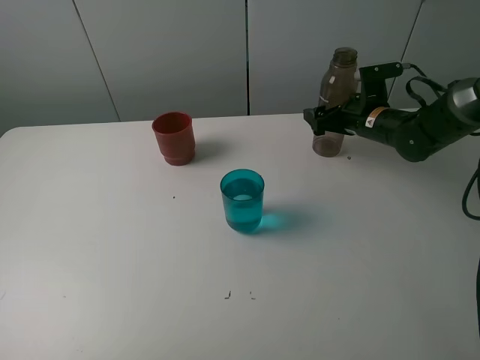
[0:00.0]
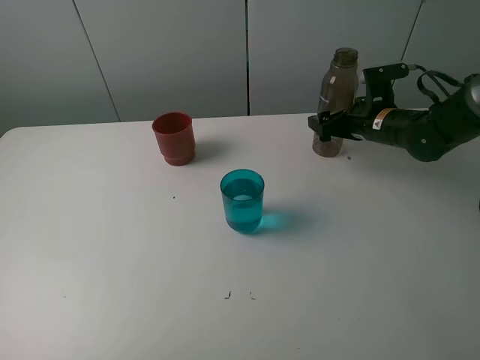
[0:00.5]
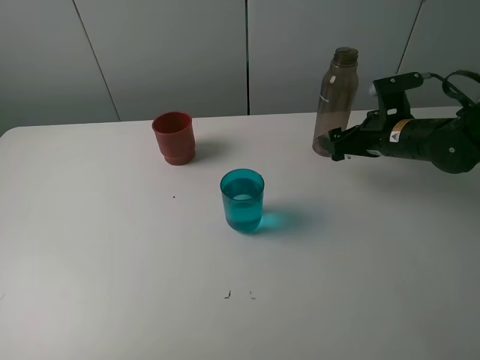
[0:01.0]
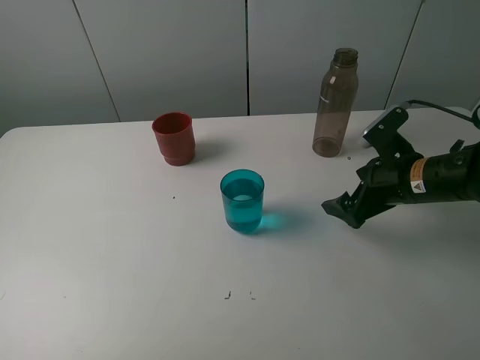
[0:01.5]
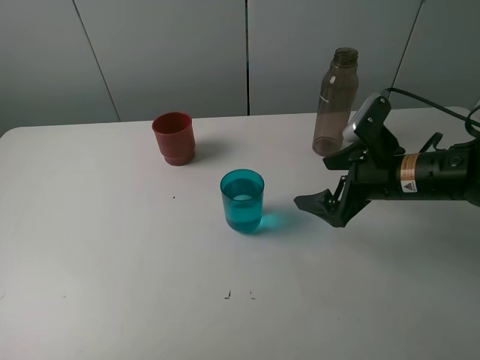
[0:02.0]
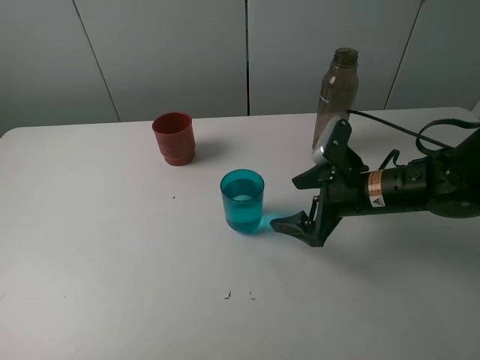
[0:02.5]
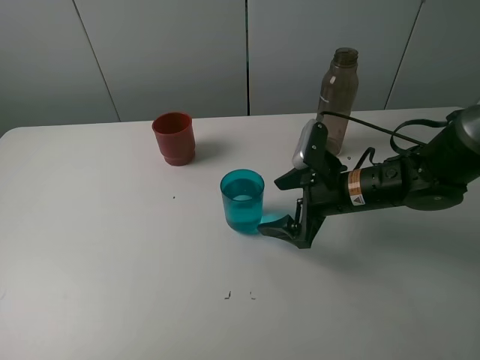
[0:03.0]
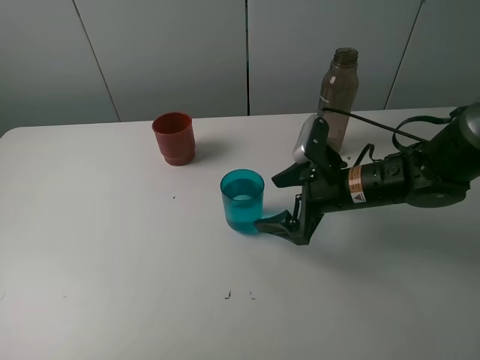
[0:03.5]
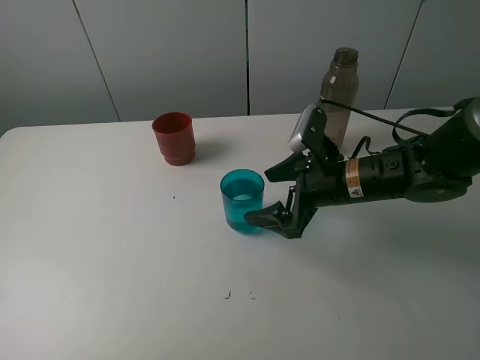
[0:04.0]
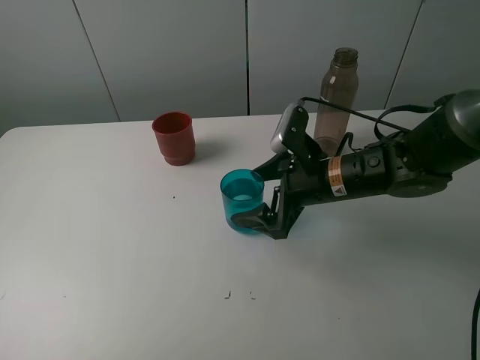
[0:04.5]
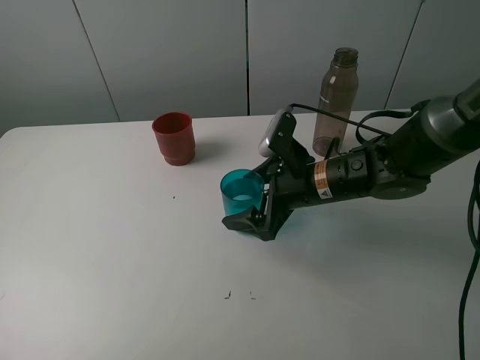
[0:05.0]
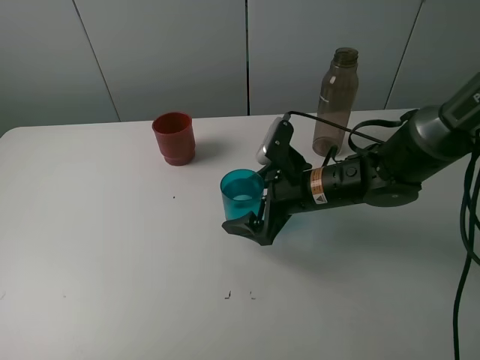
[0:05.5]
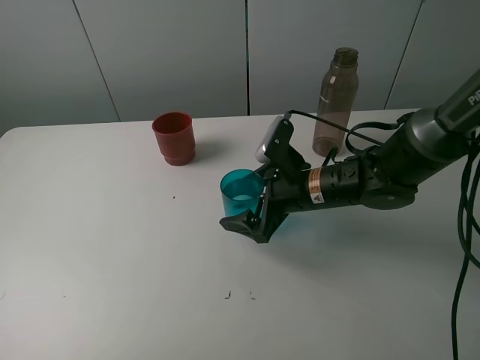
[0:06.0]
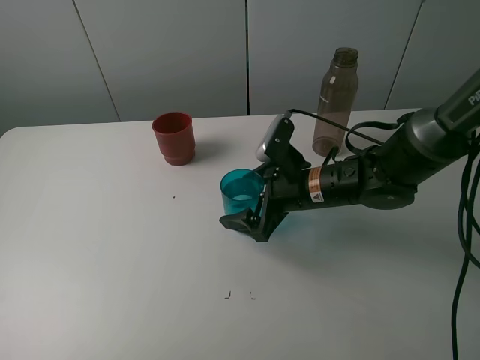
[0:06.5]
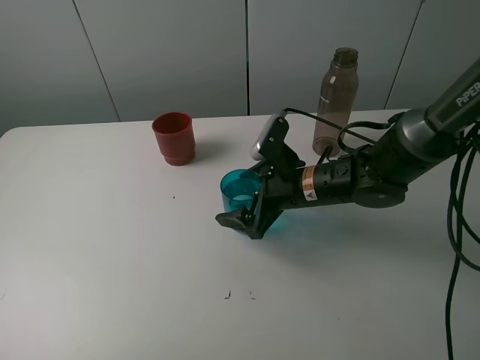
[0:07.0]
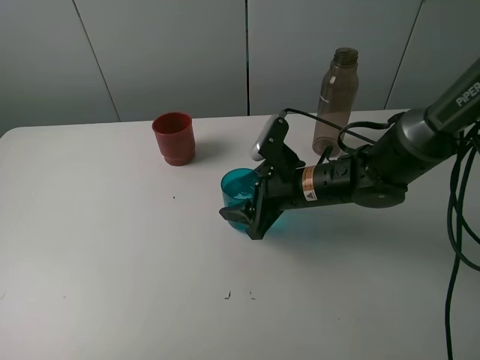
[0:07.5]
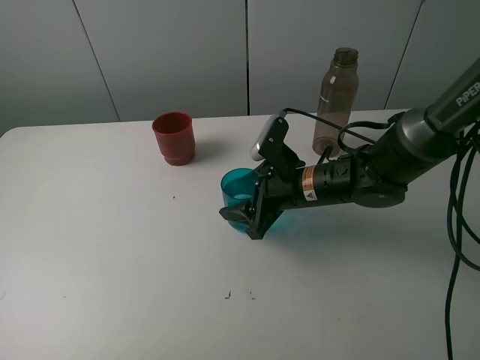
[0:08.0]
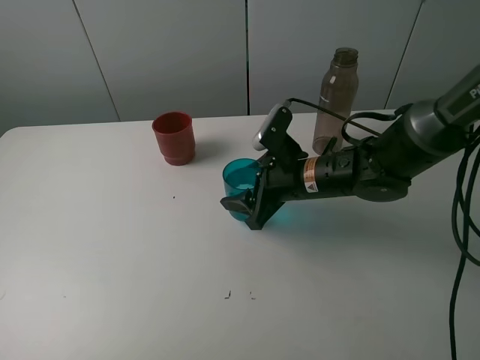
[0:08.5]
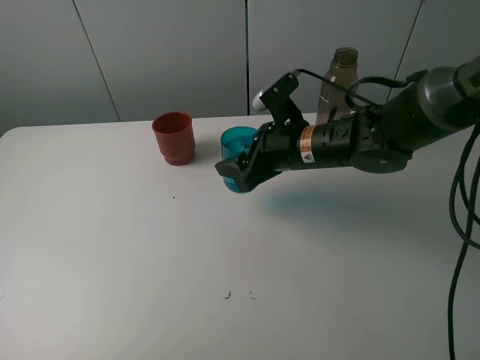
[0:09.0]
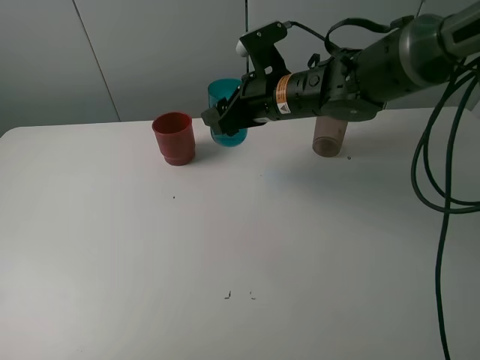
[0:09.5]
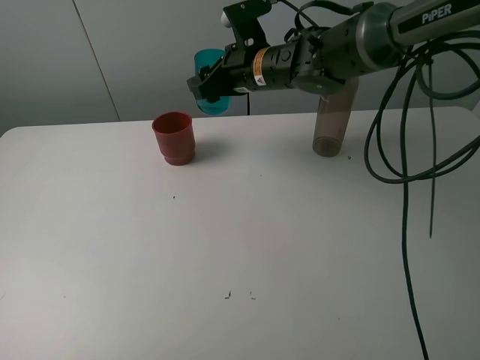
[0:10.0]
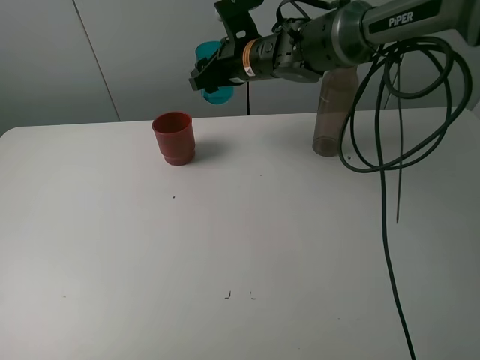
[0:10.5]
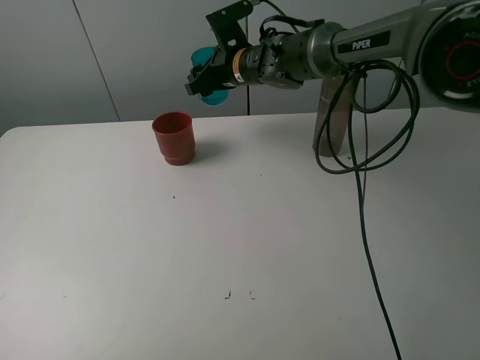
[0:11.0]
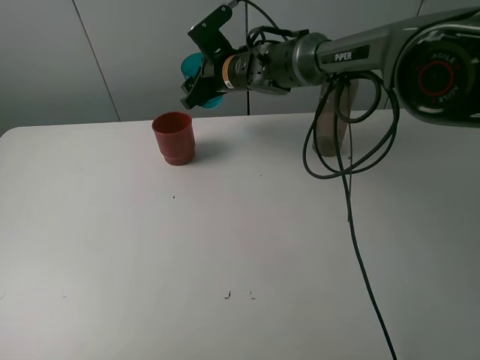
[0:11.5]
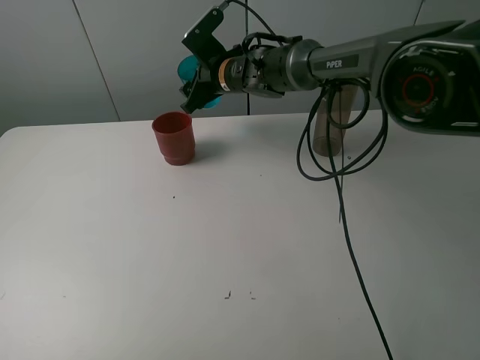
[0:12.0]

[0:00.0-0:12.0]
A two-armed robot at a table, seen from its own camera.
Task of the whole recording: pick up the bottle and pour water into the cup, then pick up the cup containing water and pour it into another cup.
Step, 0:00.5 to 0:07.5: Grasp the blue cup with the right gripper.
0:00.0 to 0:02.0: The right gripper moves backward, approximately 15 cm.
0:02.0 to 0:04.0: The right gripper is displaced to the left by roughly 5 cm.
0:04.0 to 0:06.0: There are only small adjustments of the grippers.
0:06.0 to 0:08.0: The right gripper closes its fingers.
0:08.0 to 0:10.0: The right gripper goes about 20 cm forward, upward and to the left.
0:10.0 to 0:12.0: The right gripper travels forward by roughly 5 cm.

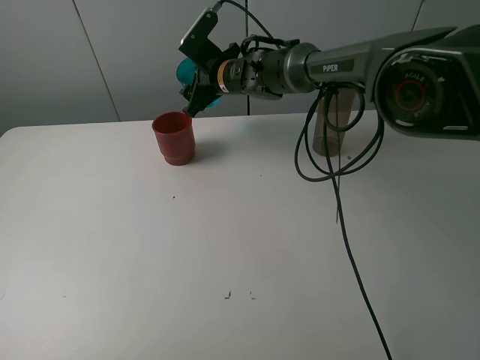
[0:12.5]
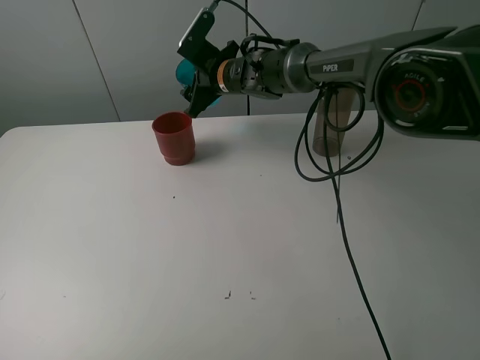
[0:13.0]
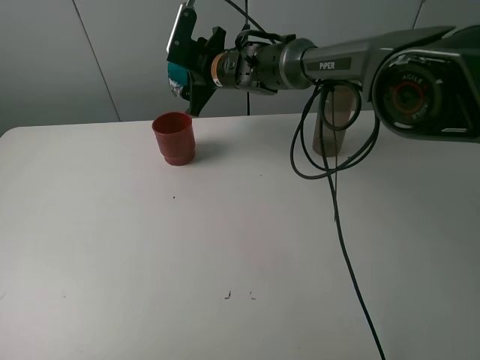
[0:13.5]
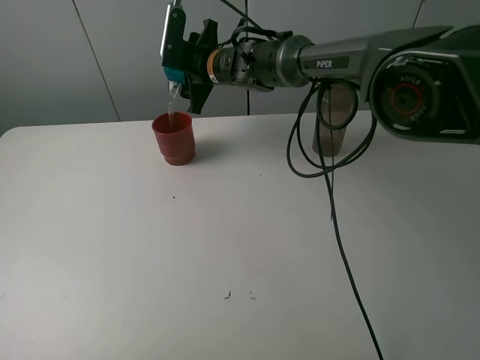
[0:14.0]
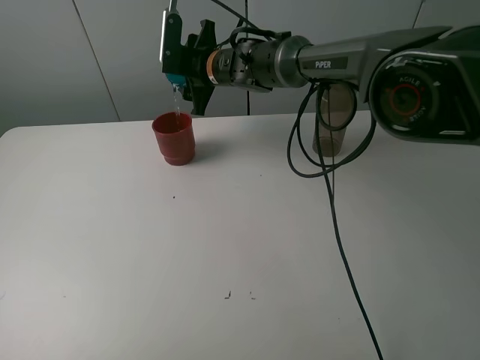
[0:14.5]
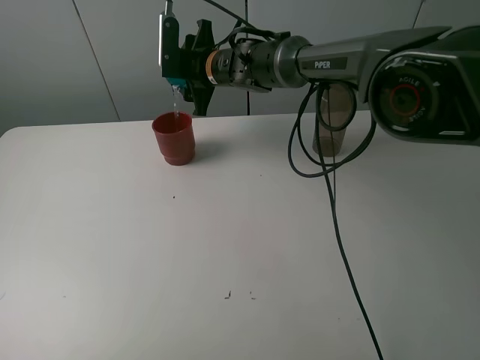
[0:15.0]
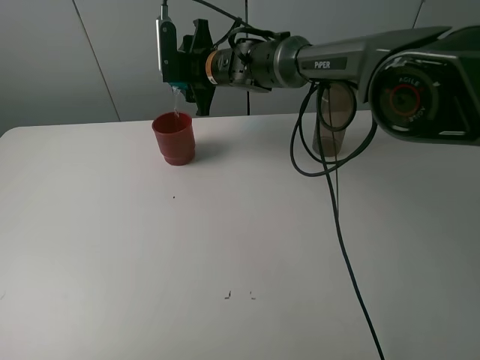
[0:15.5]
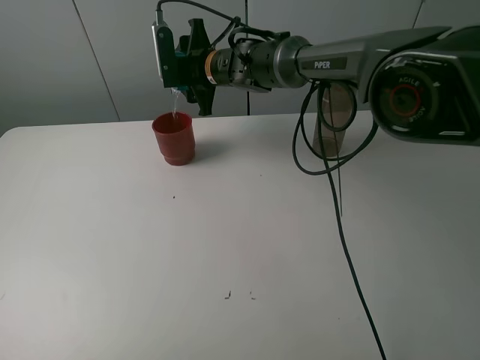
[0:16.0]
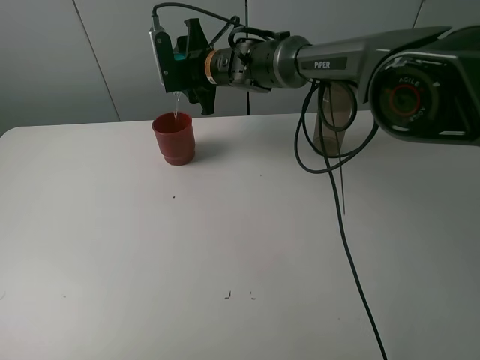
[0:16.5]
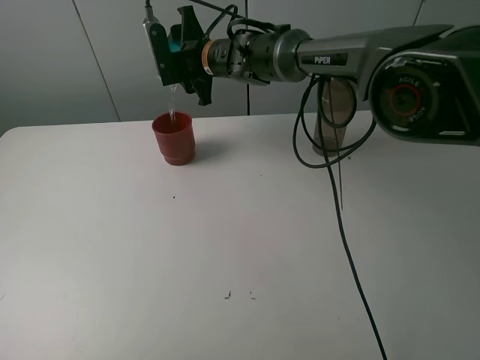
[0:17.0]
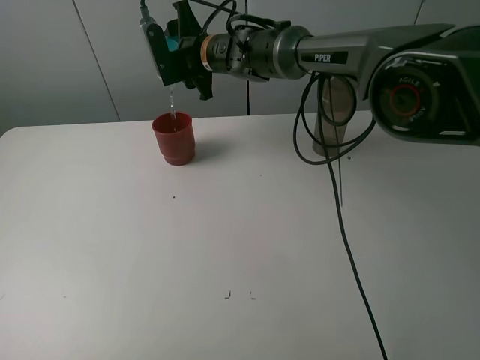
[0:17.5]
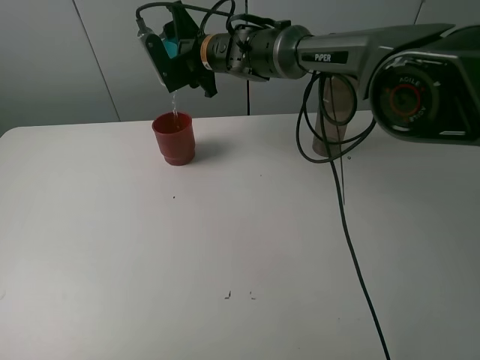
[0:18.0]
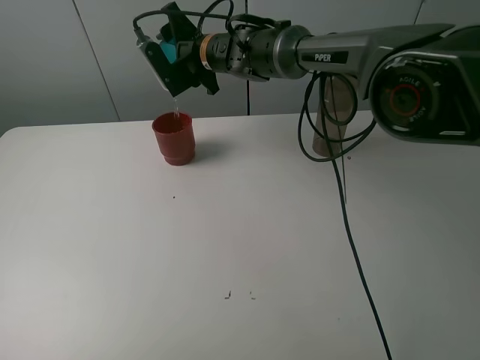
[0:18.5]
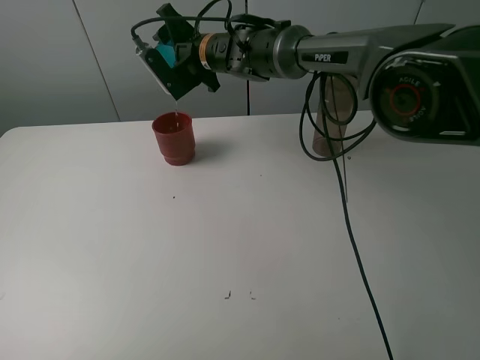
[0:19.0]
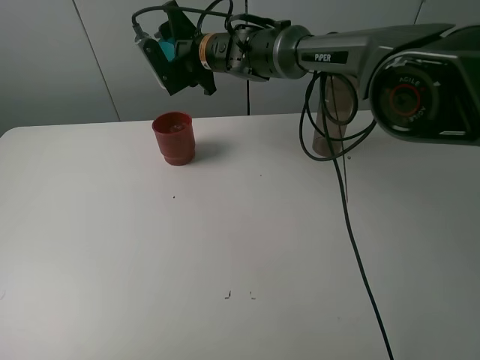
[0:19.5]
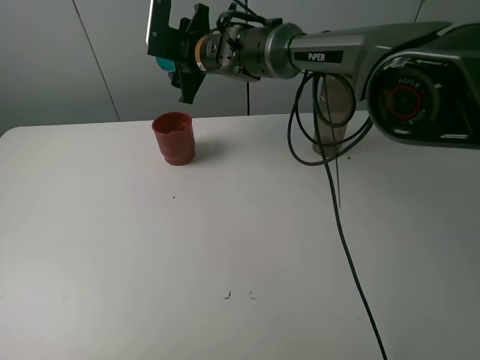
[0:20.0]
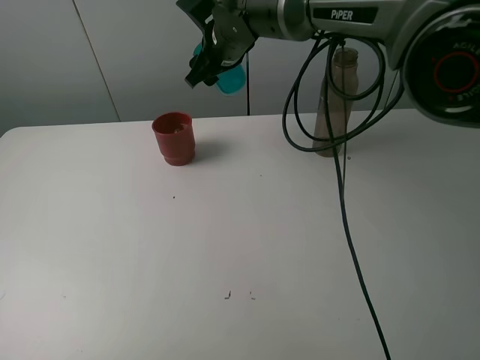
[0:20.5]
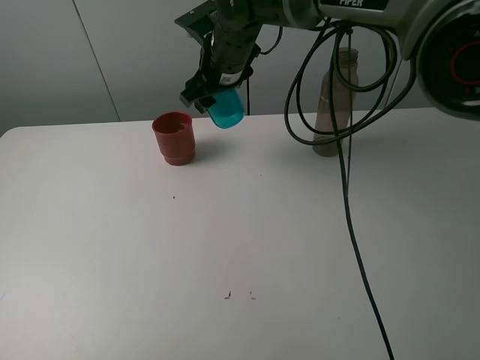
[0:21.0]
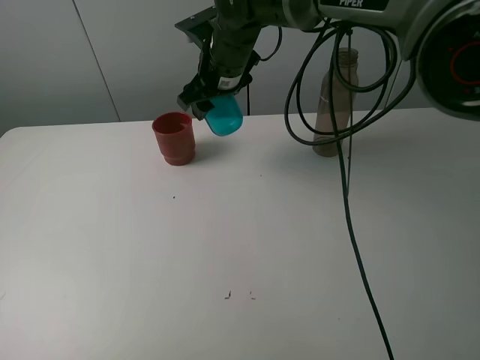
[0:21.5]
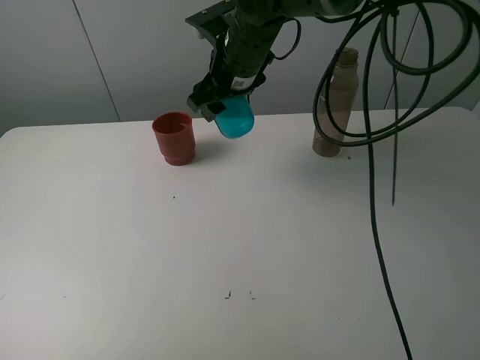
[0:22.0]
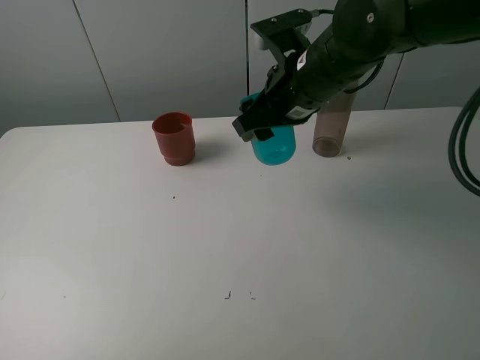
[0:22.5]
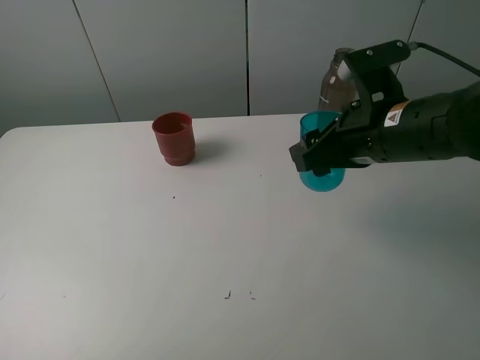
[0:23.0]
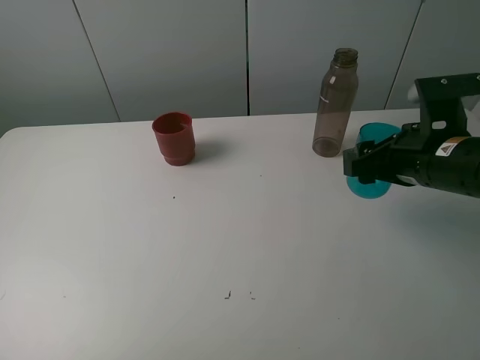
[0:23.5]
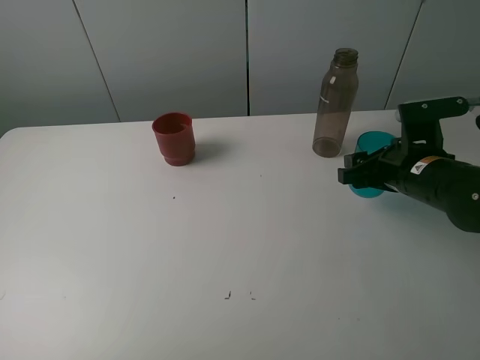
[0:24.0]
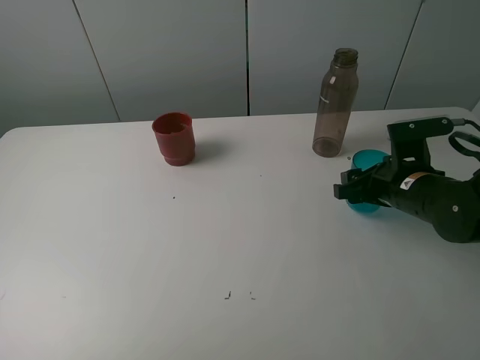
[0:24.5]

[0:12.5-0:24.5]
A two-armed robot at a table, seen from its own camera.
Task of the whole recording: pick up the bottle and pour water into the cup, then pick up the cup containing water and pour it into another cup.
Step, 0:12.5 to 0:19.0: Pour water from blue cup to red cup with the right gripper.
0:14.5 to 0:16.5: The grippers make only small movements.
0:18.5 to 0:20.5: The right gripper moves roughly 5 cm.
0:20.5 to 0:22.5: The right gripper travels backward and to the right by approximately 20 cm.
0:22.5 to 0:24.5: The right gripper is displaced to the right and downward by approximately 20 cm.

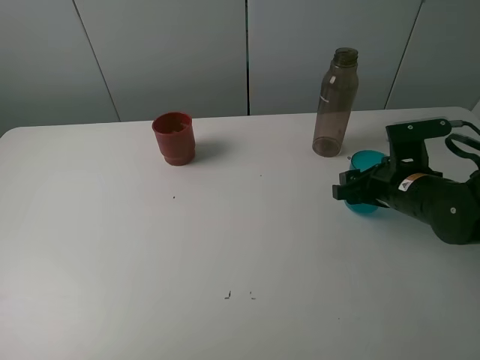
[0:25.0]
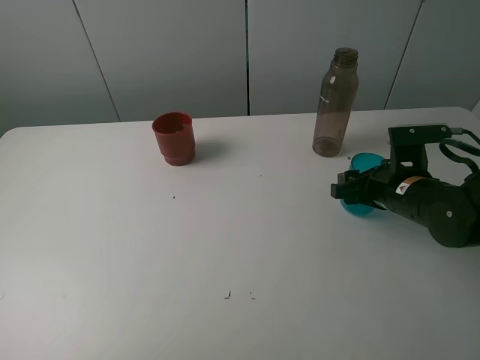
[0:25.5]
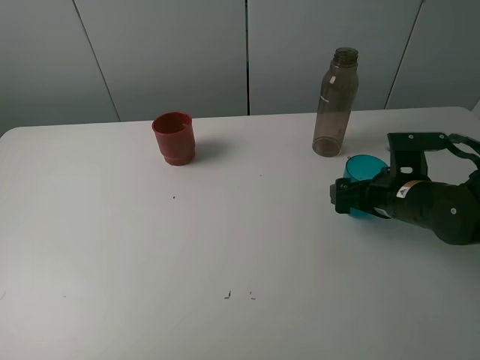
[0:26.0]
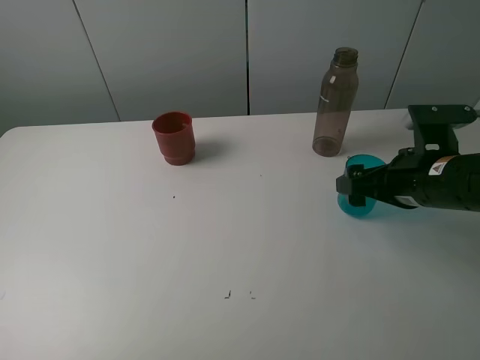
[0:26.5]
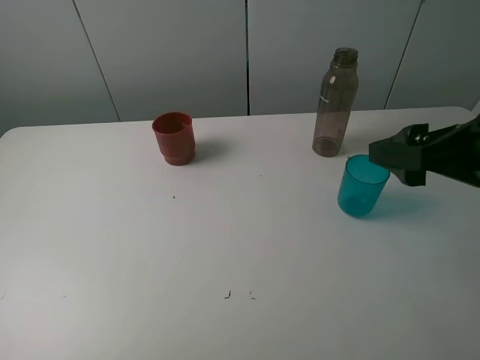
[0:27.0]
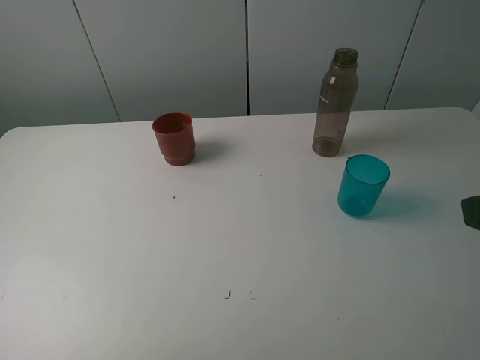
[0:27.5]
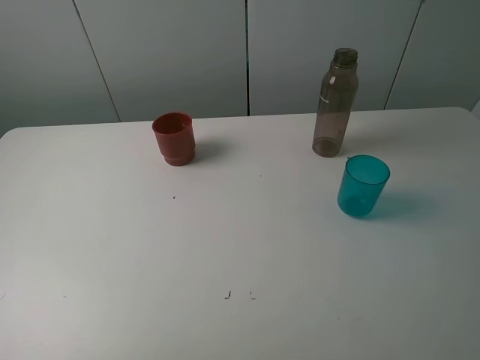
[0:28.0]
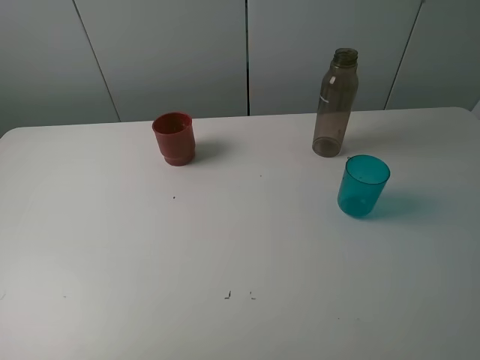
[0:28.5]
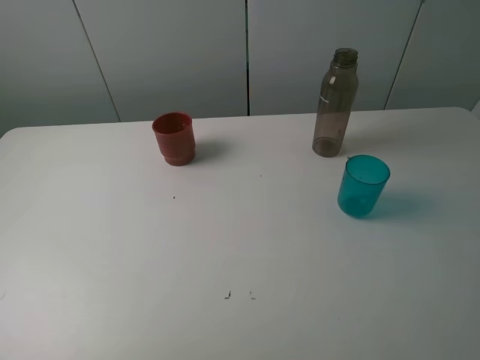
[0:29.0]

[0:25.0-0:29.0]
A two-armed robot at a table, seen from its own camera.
Task of the whole recording: pick up the bottle and pour water into the cup, then pick up the cup containing water and pour it into another cup.
0:25.0 to 0:27.0: The right gripper moves upward and backward, about 20 cm, and opens its fingers.
0:27.0 to 0:29.0: The right gripper moves backward, roughly 15 cm.
